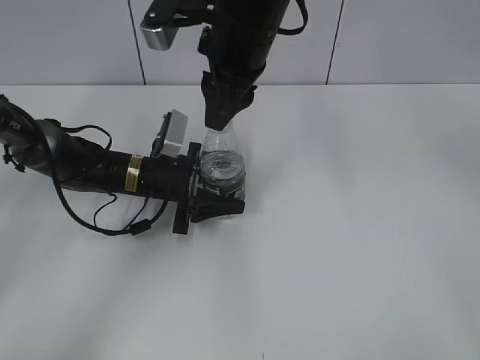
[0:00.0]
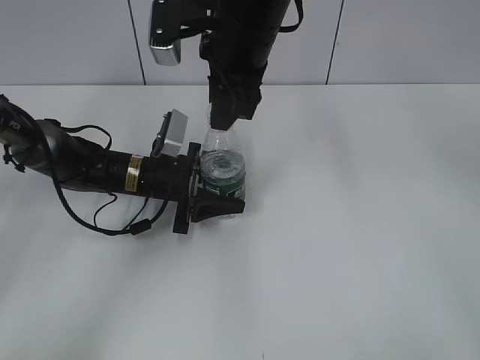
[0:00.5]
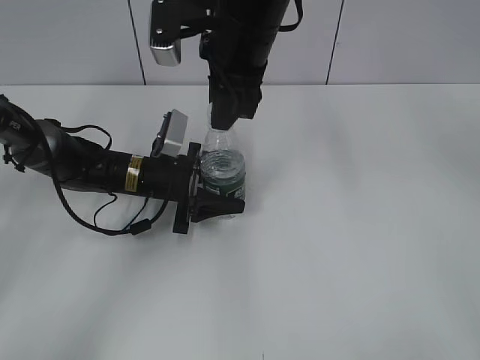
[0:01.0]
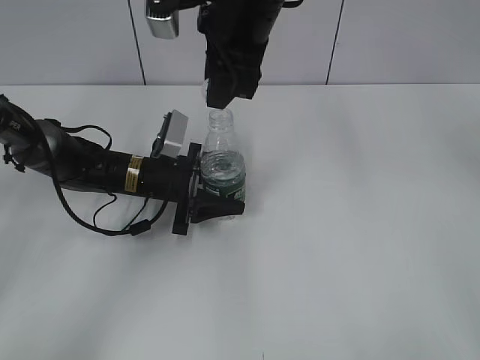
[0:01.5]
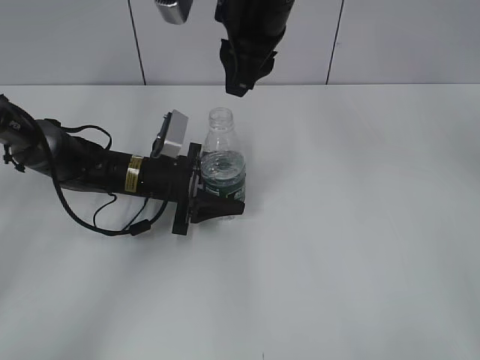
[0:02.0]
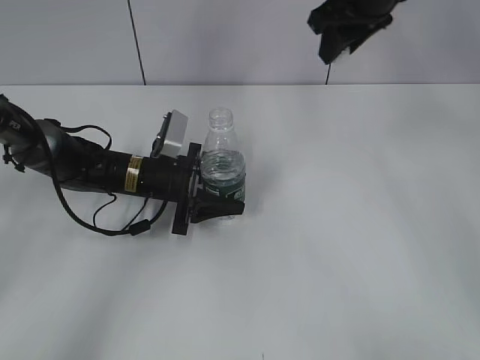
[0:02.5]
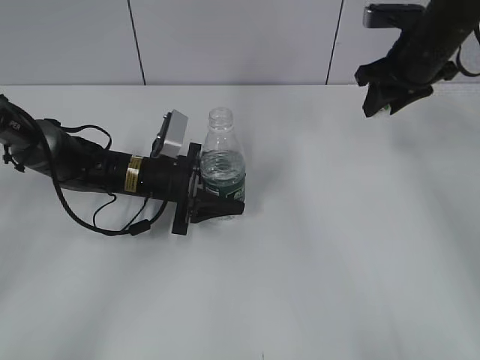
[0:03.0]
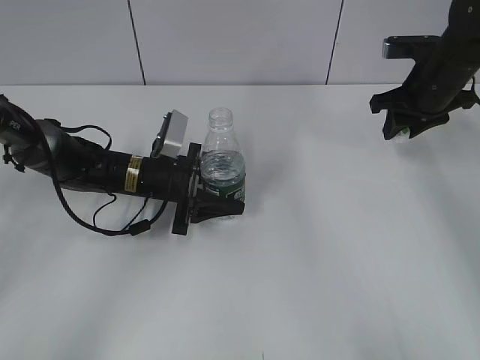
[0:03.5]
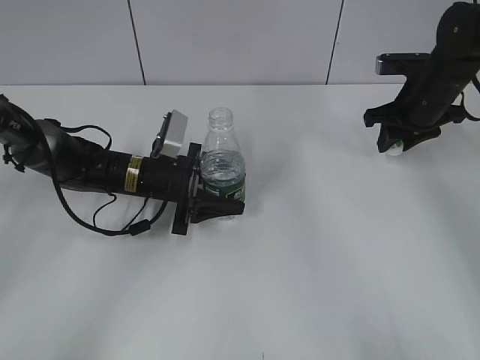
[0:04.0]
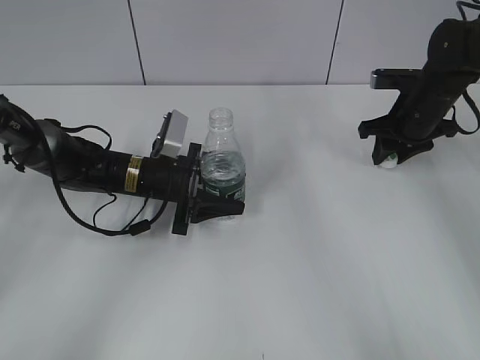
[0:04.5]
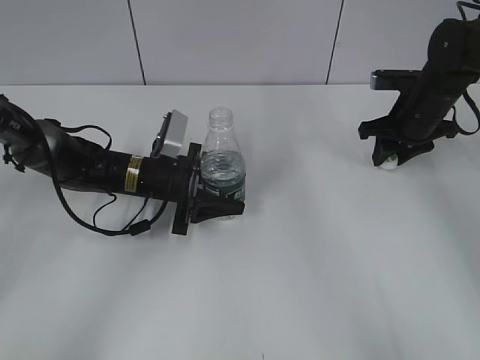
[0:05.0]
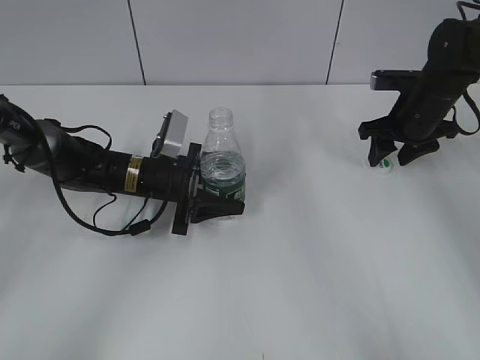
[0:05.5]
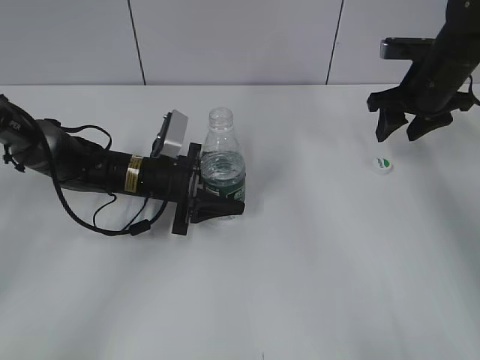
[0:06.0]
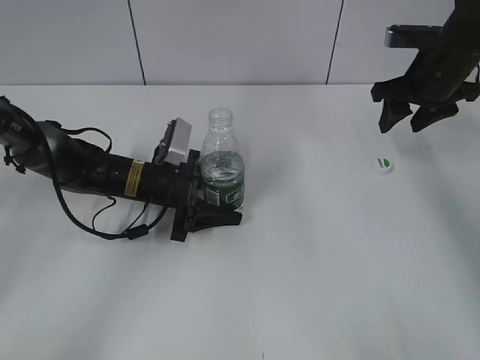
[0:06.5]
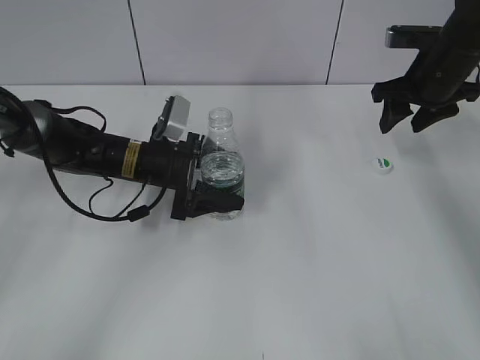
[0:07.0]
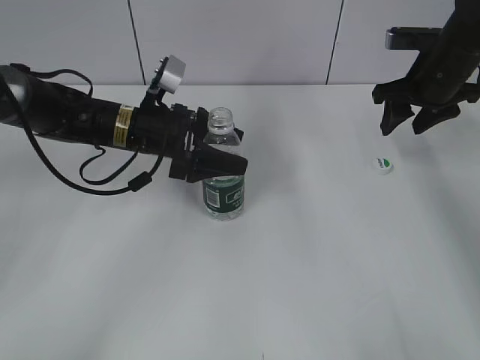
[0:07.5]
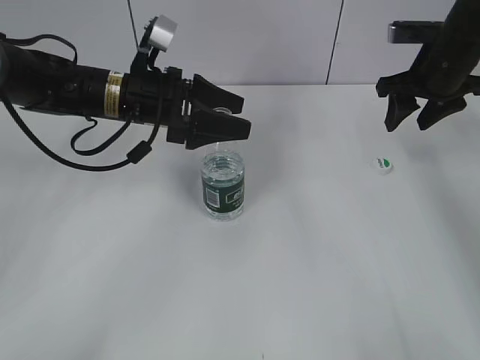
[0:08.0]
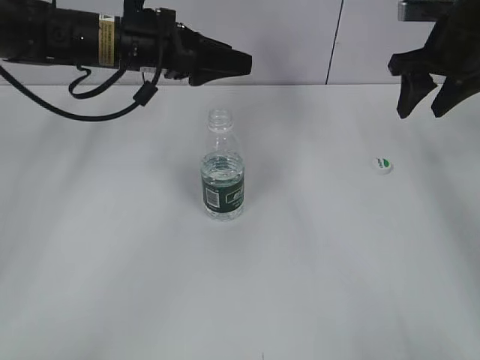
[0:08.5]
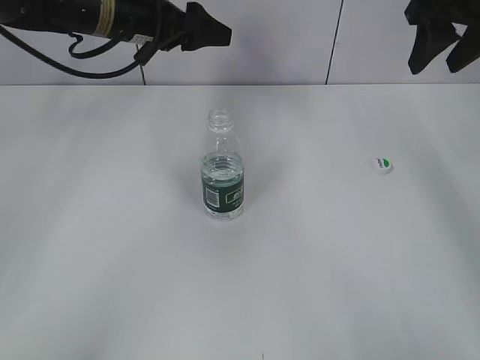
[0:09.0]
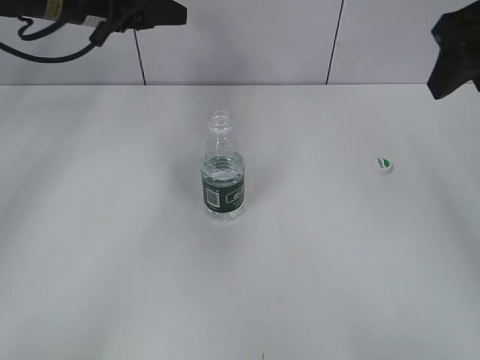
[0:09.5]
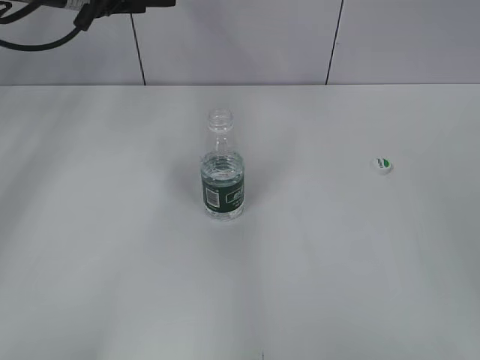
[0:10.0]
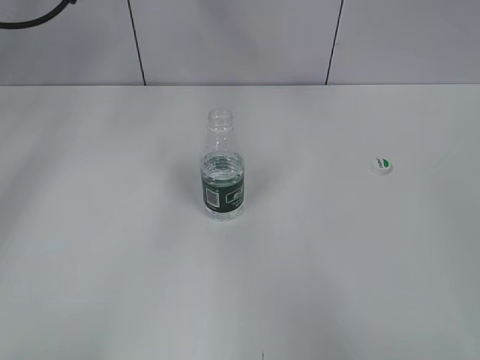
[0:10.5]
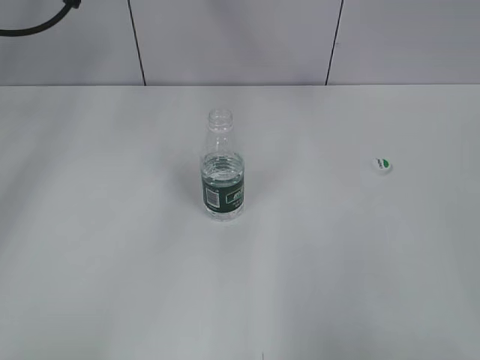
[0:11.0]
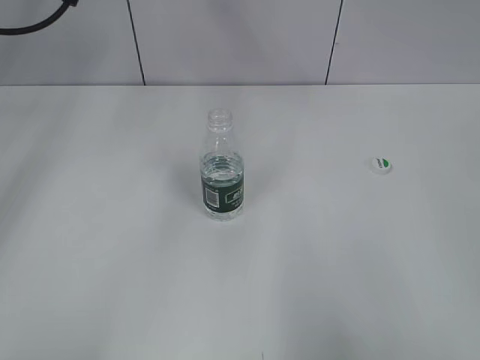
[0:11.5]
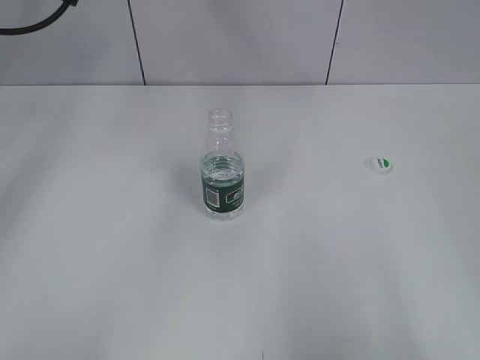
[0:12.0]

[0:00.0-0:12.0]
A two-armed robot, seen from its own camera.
Step, 0:02.0 to 0:05.5: Place the bottle cap on the table with the right gripper.
Step, 0:06.0 to 0:07.5: Place the bottle on the table with the left gripper.
0:00.0 to 0:02.0: The grippers make only small movements.
0:02.0 to 0:04.0: The right gripper is displaced to the right and downward by about 30 cm.
0:04.0 to 0:06.0: The right gripper opens up.
0:06.0 to 0:08.0: The left gripper heads upward, covering roughly 15 cm, and opens up.
0:08.0 to 0:10.0: The right gripper moves backward and upward, about 30 cm. Meanwhile the left gripper moves upward, to the left and forward, about 15 cm.
